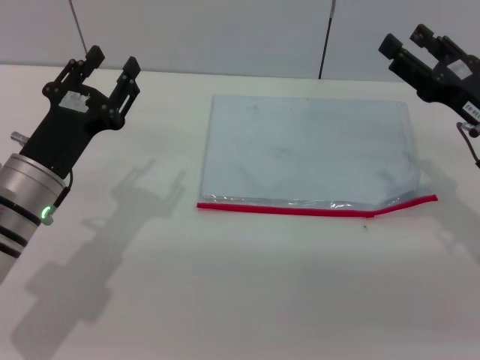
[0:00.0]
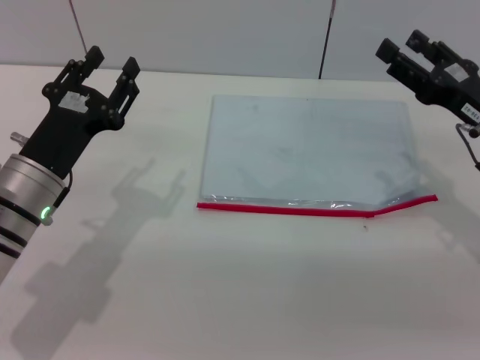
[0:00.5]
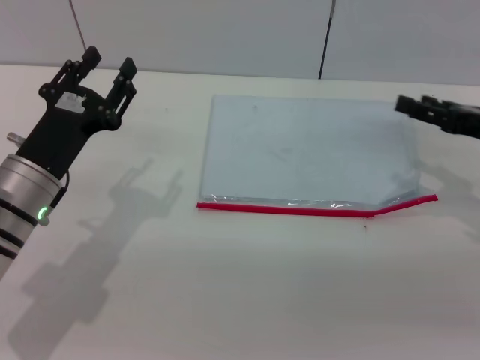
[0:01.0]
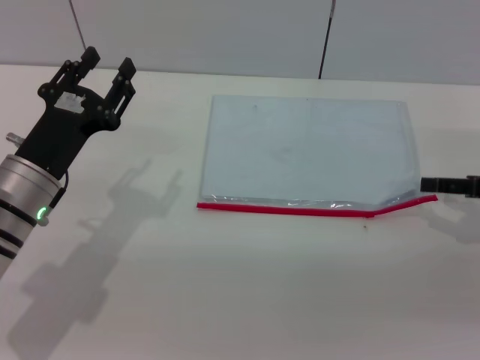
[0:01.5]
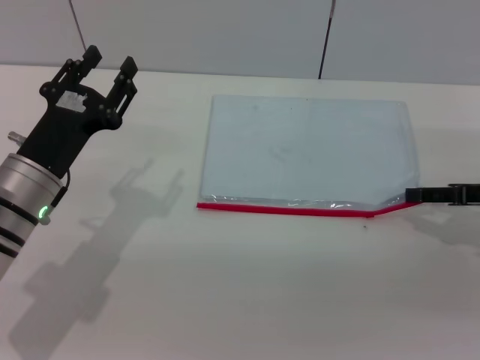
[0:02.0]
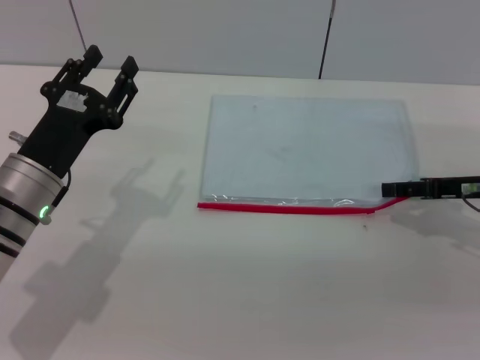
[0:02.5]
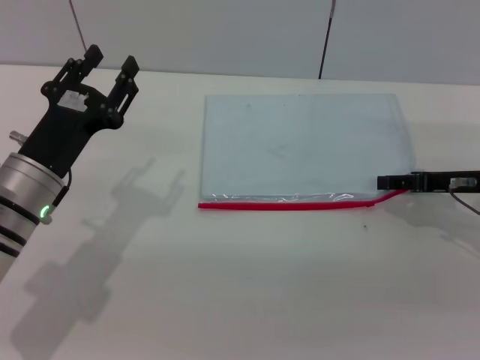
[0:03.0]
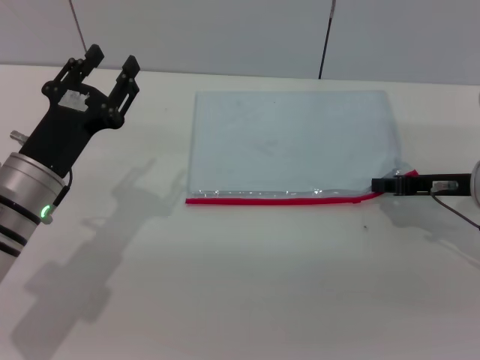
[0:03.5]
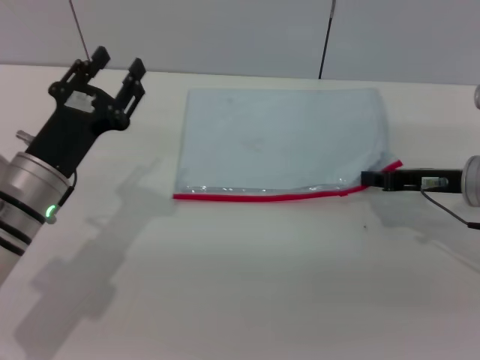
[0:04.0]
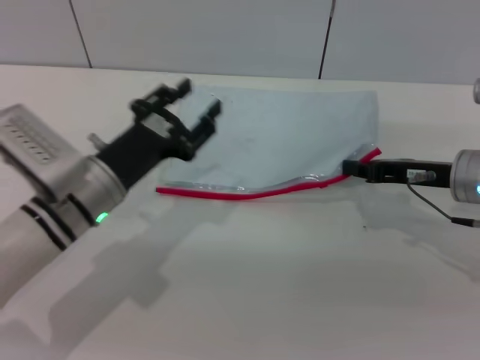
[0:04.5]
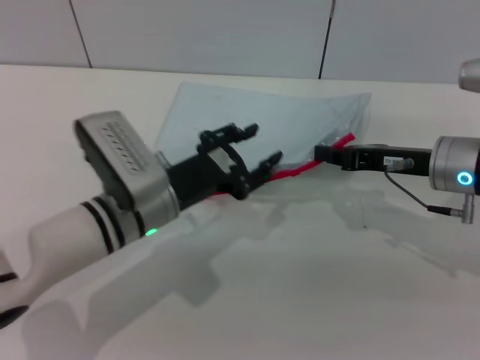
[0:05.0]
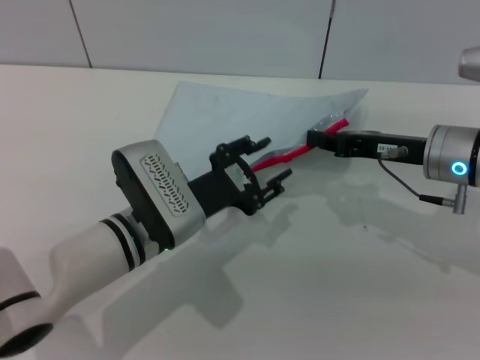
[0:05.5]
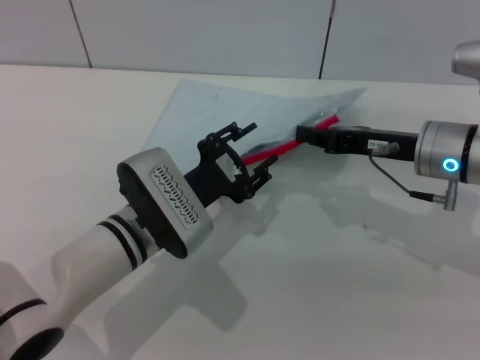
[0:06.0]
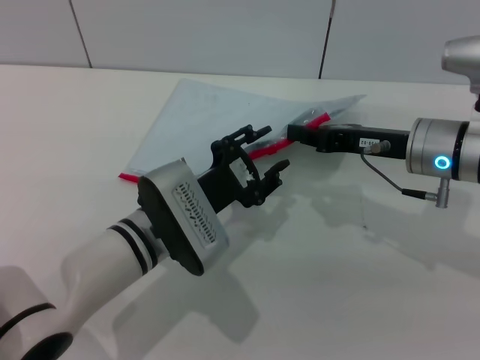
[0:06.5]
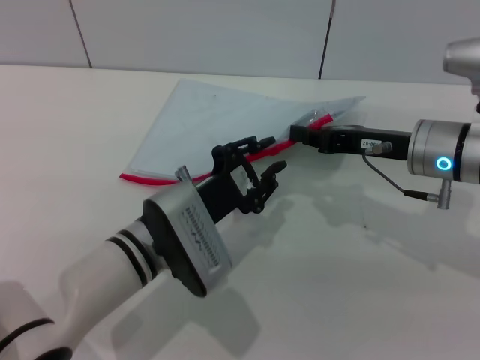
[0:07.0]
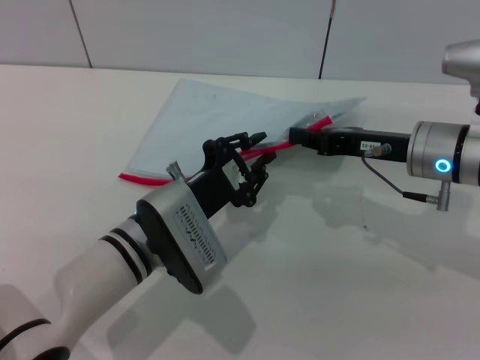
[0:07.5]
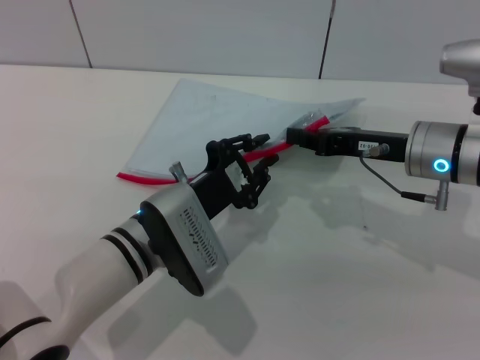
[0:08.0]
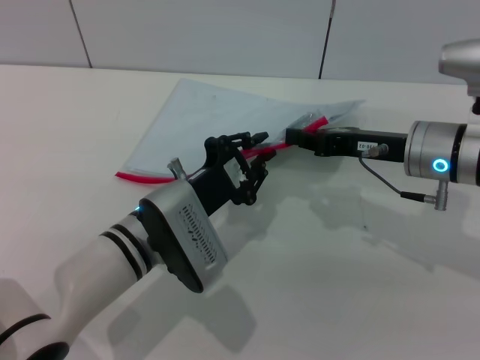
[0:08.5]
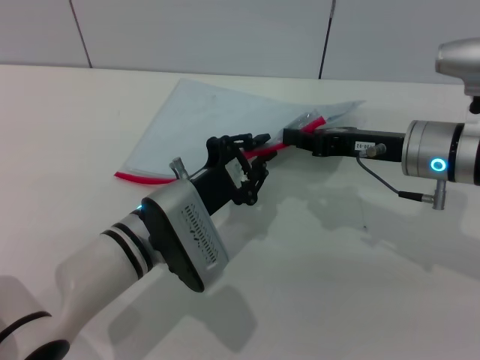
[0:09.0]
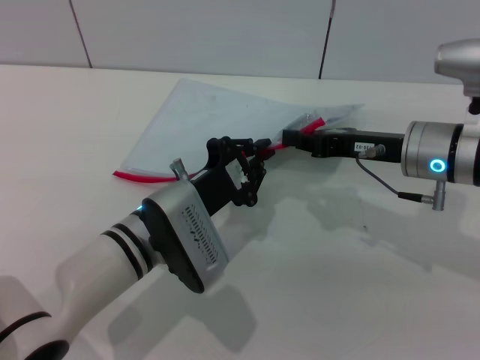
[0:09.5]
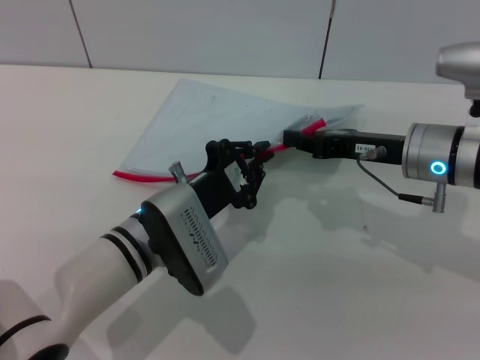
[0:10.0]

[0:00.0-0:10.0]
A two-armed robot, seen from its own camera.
Step, 0:00.0 to 0:04.5: Pick up the transparent plastic bag with the right gripper.
0:00.0 to 0:02.0: The right gripper is displaced to the right by approximately 5 cm.
0:02.0 to 0:04.0: The right gripper heads to the left, covering some 5 cm, and closes its fingers.
0:04.0 to 0:06.0: The right gripper travels to the left by roughly 5 cm; the left gripper shifts about 10 cm to the right.
0:06.0 to 0:08.0: The left gripper closes its fingers.
0:08.0 to 0:10.0: The left gripper closes.

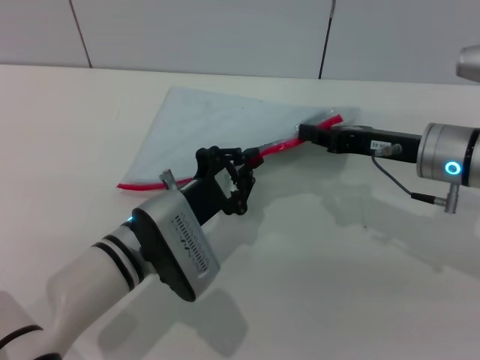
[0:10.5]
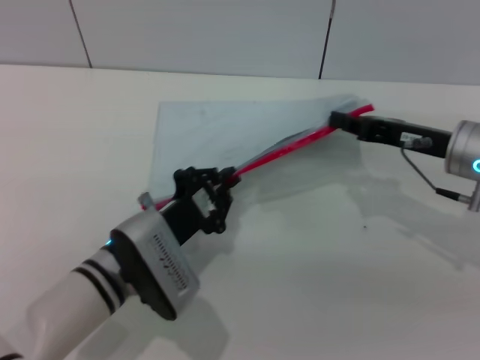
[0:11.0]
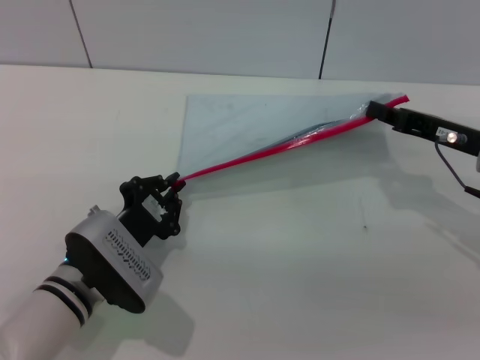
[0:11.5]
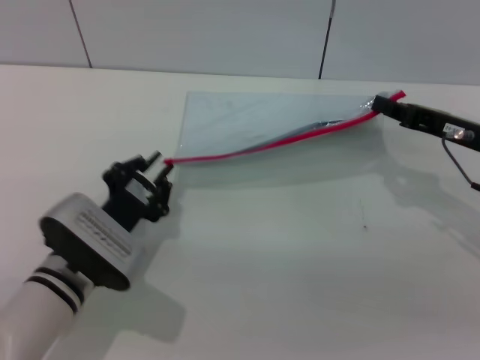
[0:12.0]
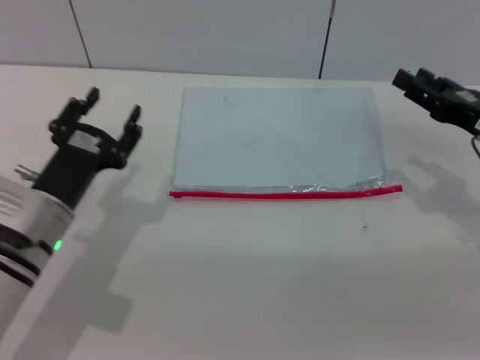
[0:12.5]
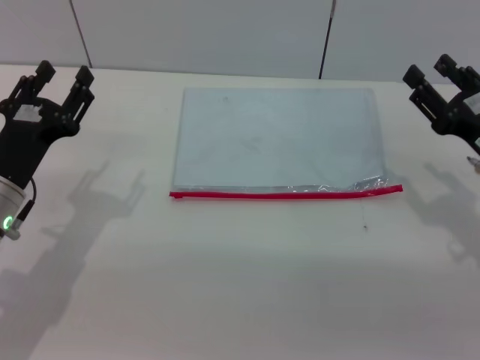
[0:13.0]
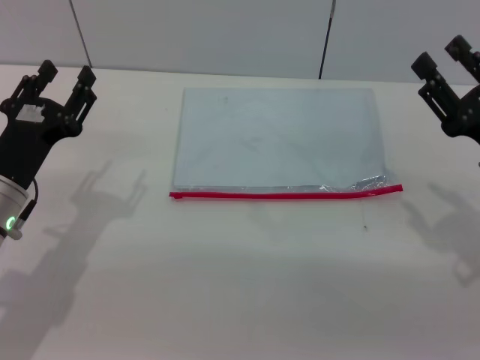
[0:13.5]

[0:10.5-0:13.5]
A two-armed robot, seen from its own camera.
Step, 0:12.5 to 0:13.0: Place the transparent plastic bag.
0:10.5 to 0:12.0: The right gripper shifts some 5 cm to the right. Meanwhile the left gripper goes approximately 5 cm to the left.
0:12.0 to 0:13.5: The left gripper is displaced to the left and upward by approximately 10 cm, and opens its fingers. Meanwhile the right gripper travels backward by some 10 cm, and opens up.

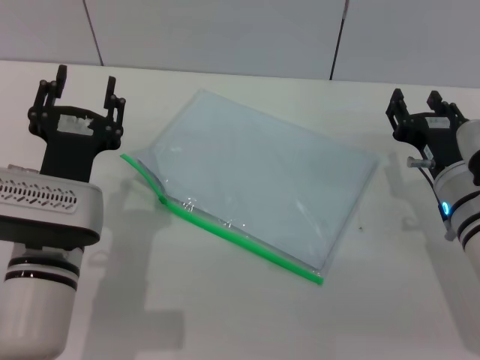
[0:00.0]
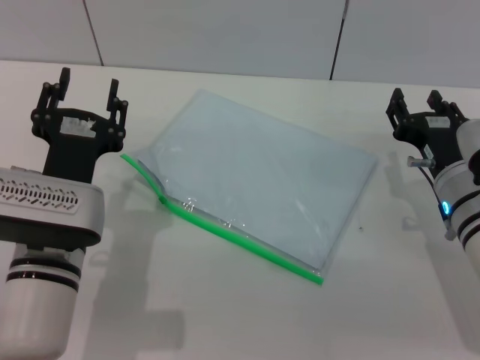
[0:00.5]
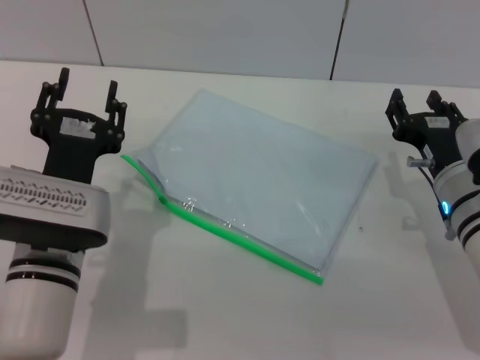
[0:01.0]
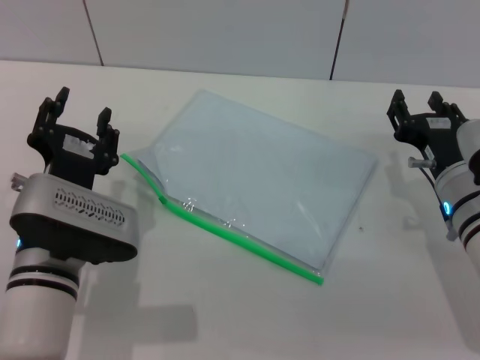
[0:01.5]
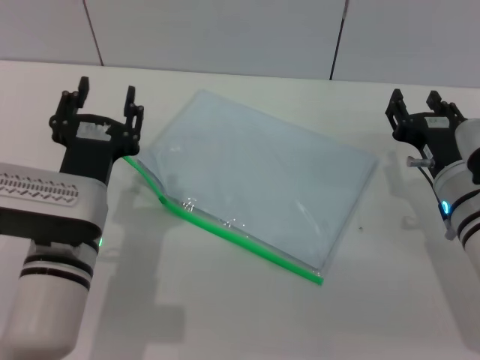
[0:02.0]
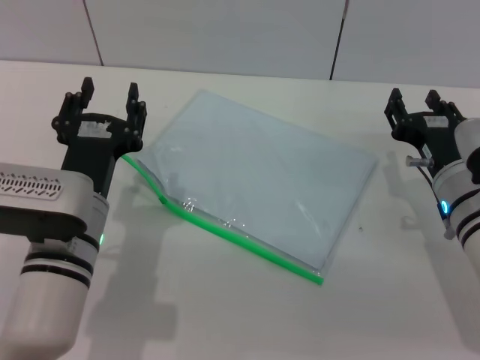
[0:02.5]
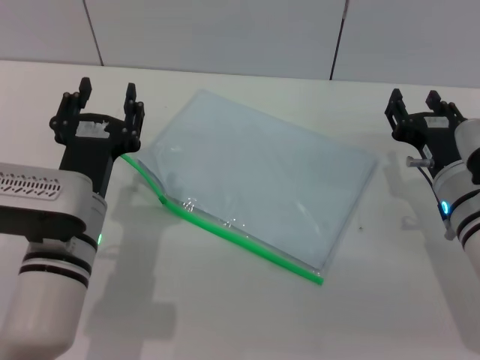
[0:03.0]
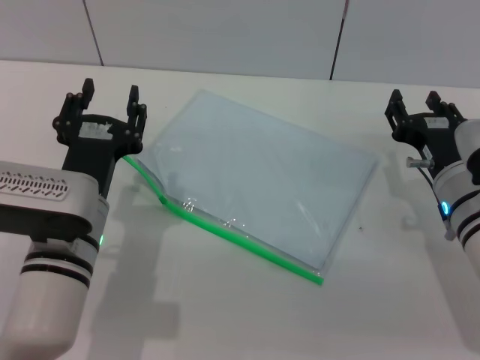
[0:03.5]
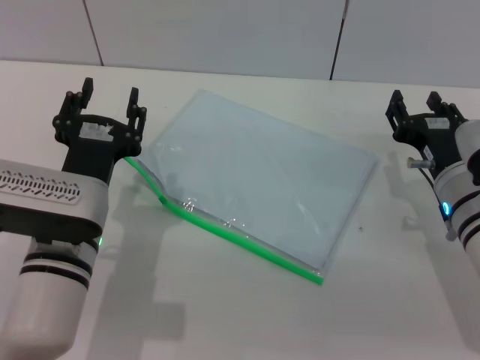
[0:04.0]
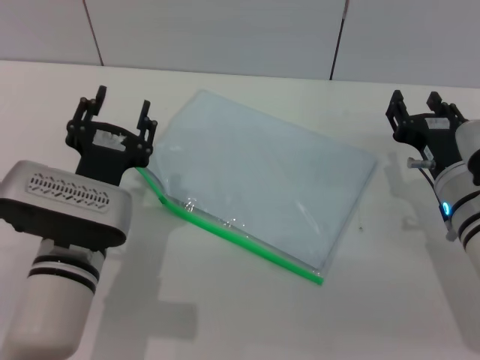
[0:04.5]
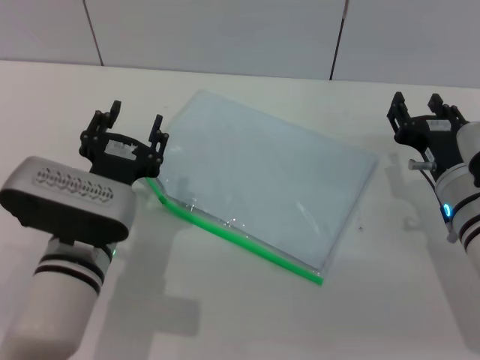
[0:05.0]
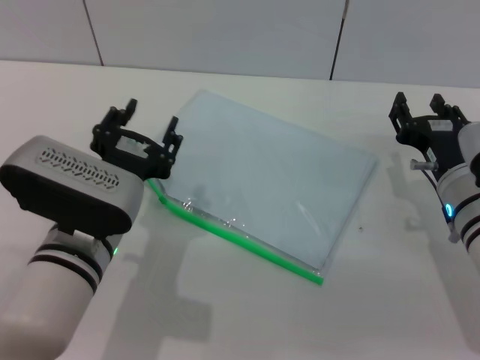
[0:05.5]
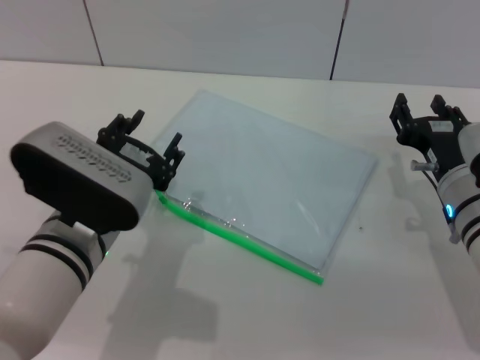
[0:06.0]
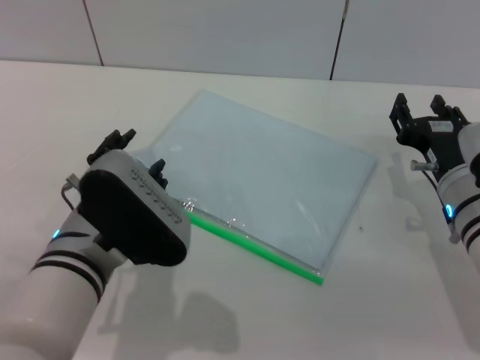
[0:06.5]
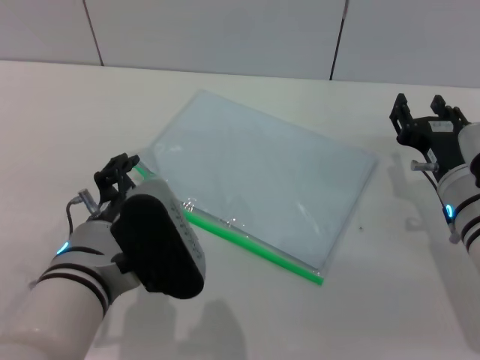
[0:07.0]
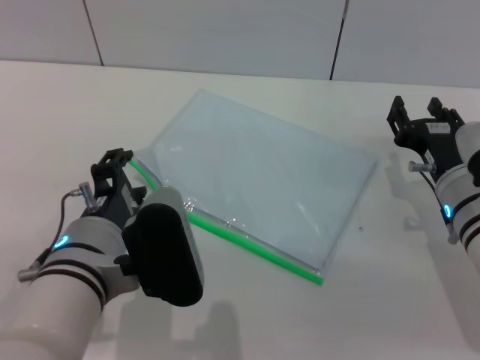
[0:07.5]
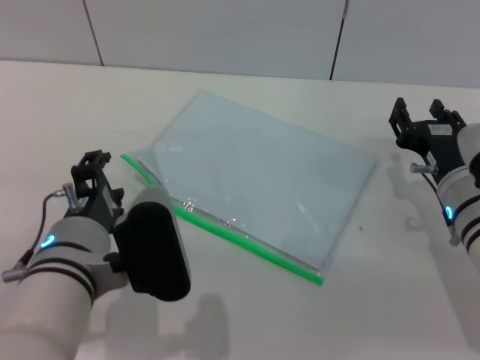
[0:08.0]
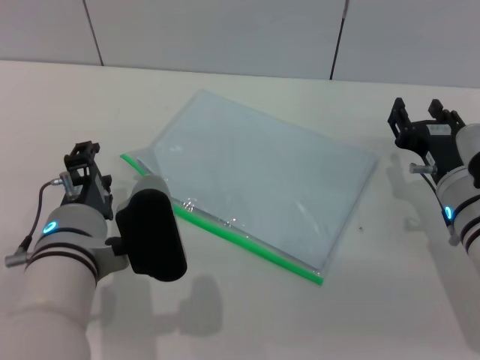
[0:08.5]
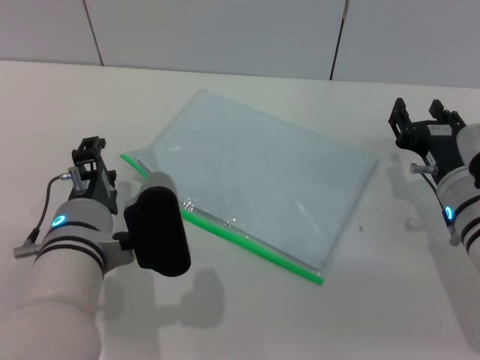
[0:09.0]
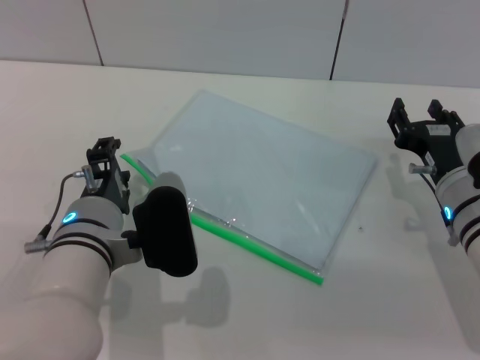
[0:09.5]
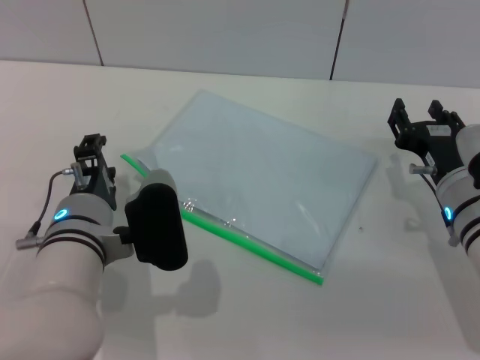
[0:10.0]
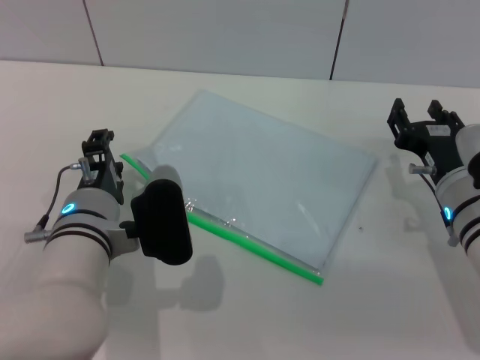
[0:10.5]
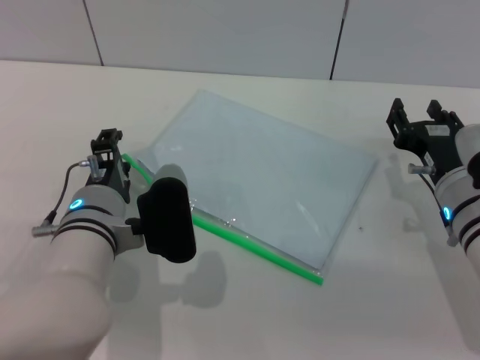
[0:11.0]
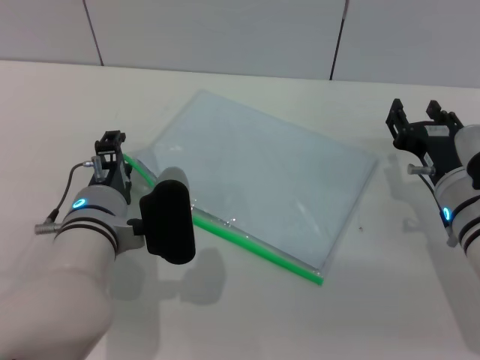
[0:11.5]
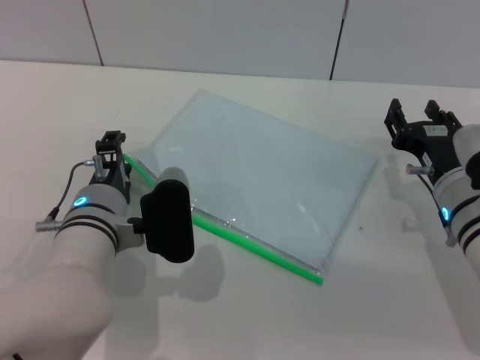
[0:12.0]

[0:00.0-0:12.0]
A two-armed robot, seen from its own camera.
0:02.0 to 0:04.0: There are only small adjustments of the grippers.
0:08.0 to 0:10.0: The left gripper shifts by some 5 cm.
0:10.0 to 0:12.0: The grippers make only small movements.

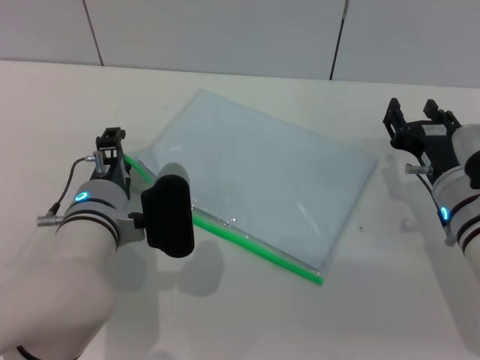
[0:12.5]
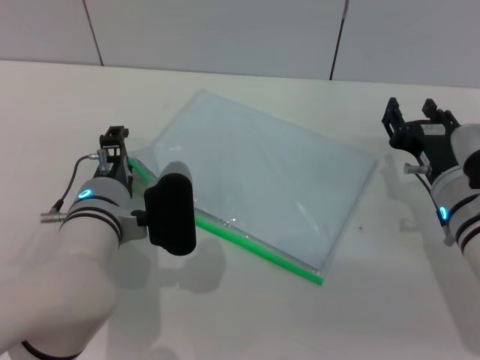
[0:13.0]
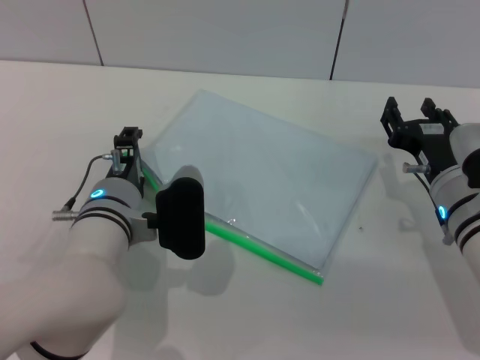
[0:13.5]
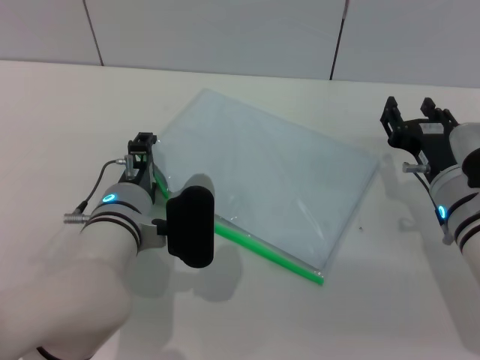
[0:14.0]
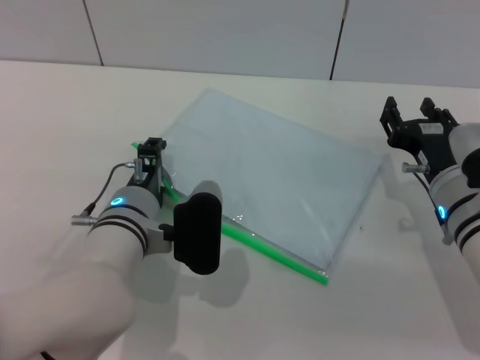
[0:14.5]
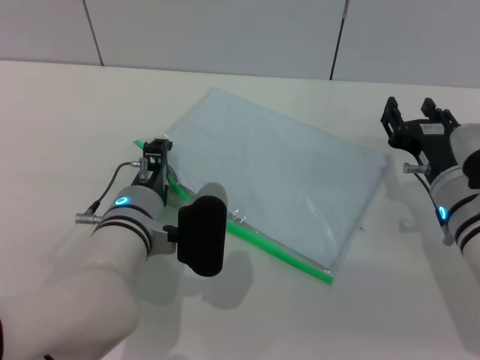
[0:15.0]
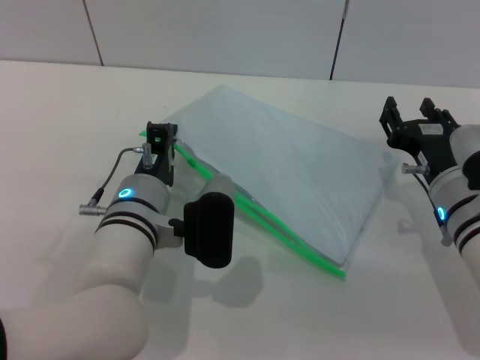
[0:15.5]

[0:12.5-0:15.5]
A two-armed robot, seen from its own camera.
0:12.5 to 0:14.0: There are only small adjustments of the grippers.
0:14.0 to 0:15.5: The left gripper closes its fingers.
